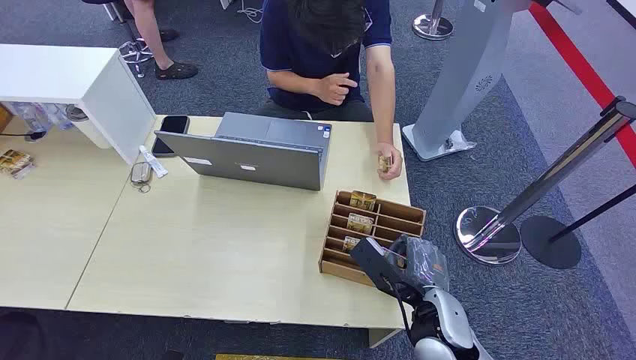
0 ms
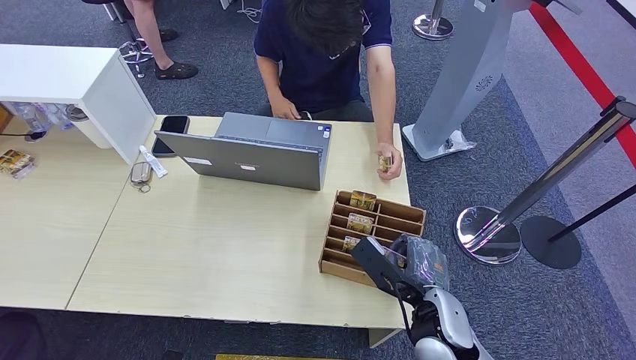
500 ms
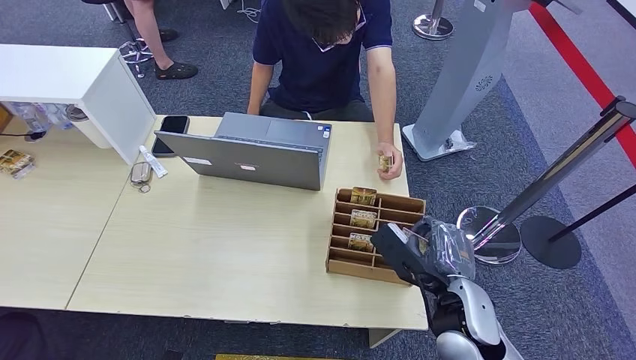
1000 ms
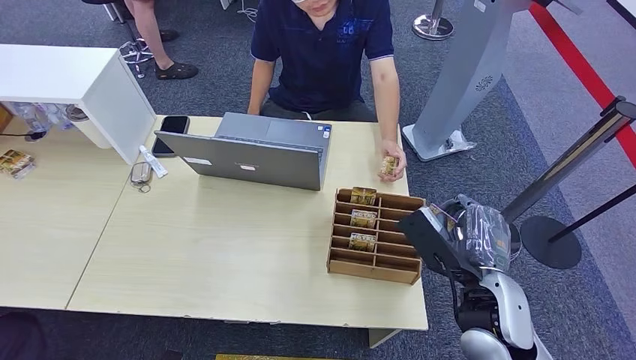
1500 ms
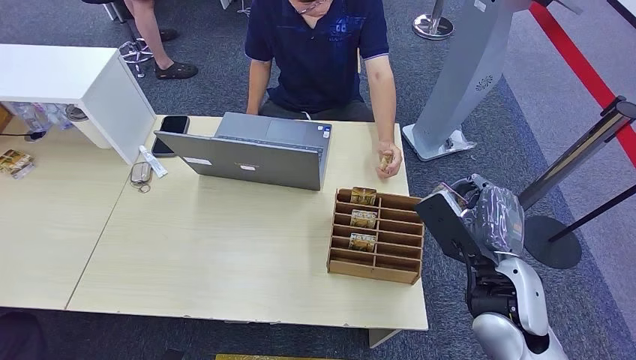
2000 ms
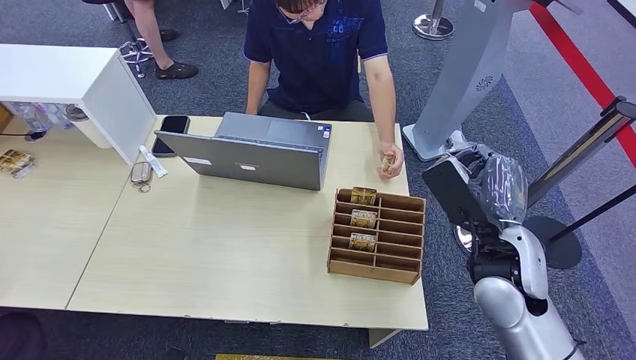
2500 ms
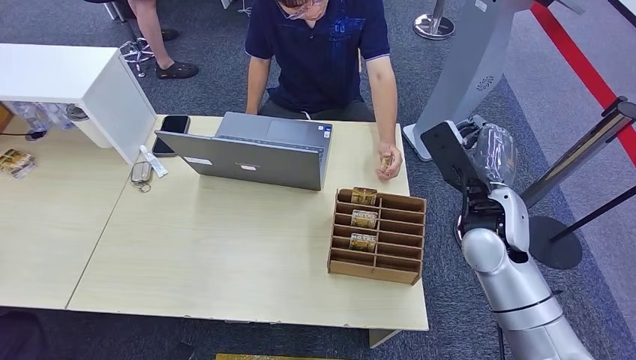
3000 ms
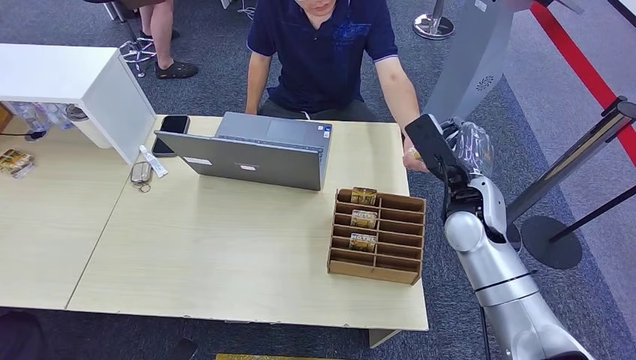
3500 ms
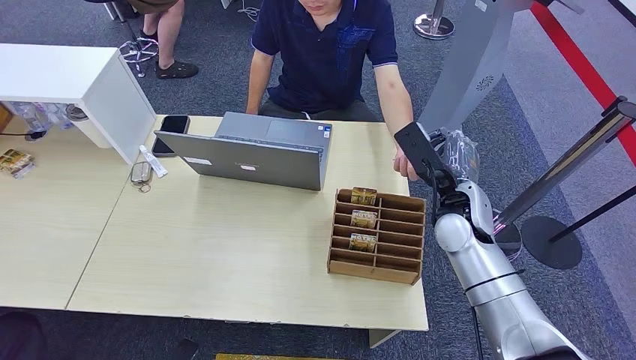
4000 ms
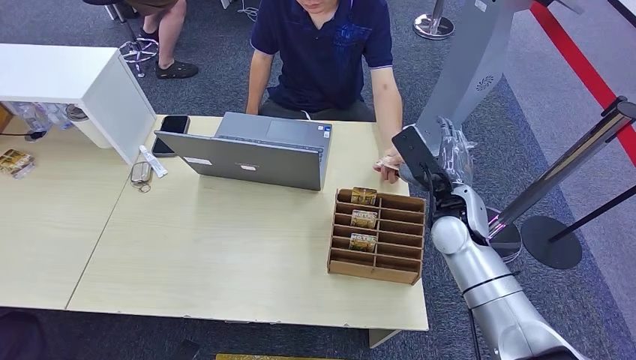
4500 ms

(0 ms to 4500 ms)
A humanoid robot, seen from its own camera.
Step, 0 ms - 1000 ms: Pick up the key card from the card box.
2000 ms - 4500 ms: The right hand shifts about 15 cm forward.
